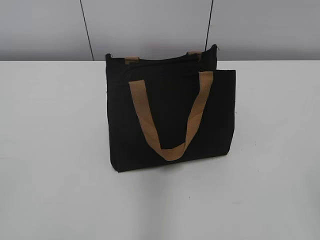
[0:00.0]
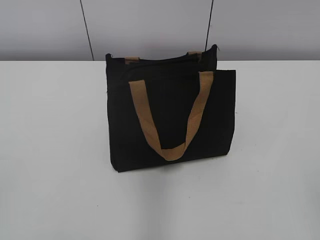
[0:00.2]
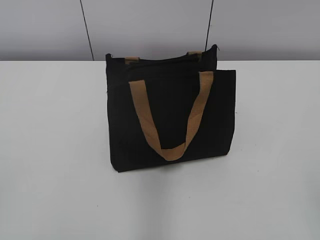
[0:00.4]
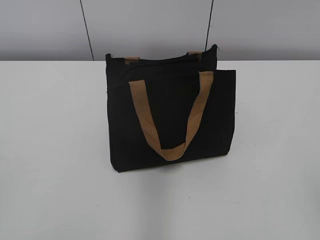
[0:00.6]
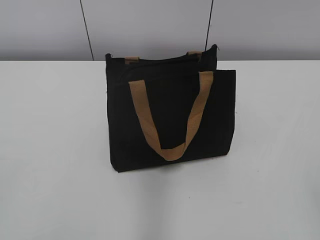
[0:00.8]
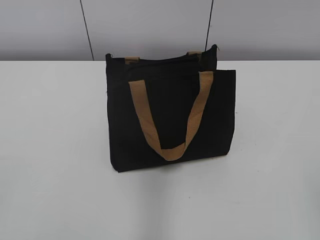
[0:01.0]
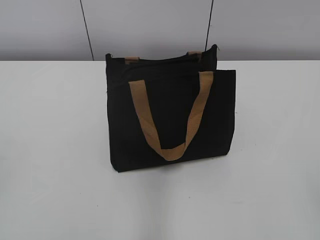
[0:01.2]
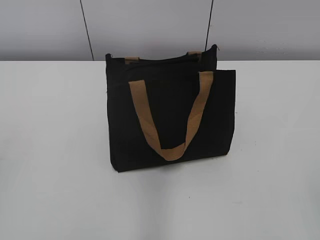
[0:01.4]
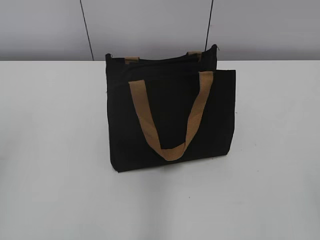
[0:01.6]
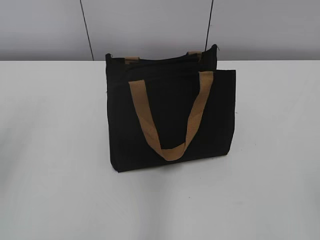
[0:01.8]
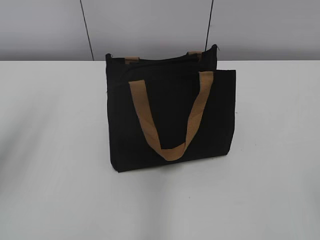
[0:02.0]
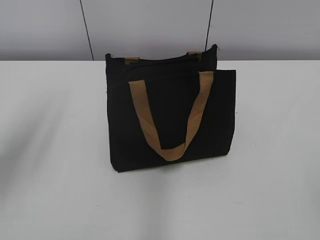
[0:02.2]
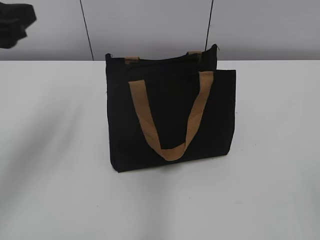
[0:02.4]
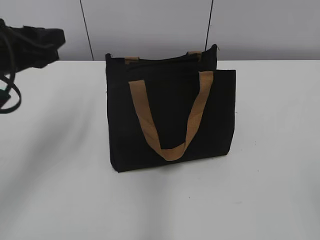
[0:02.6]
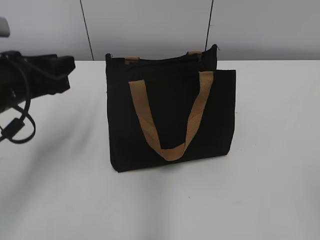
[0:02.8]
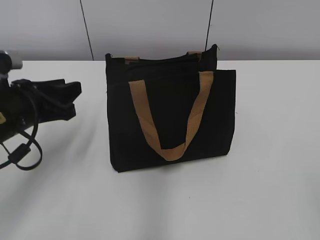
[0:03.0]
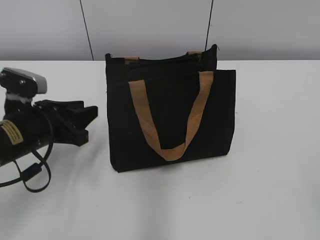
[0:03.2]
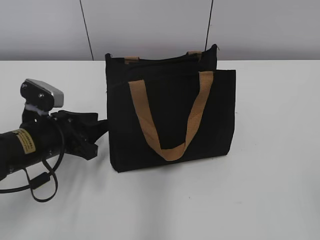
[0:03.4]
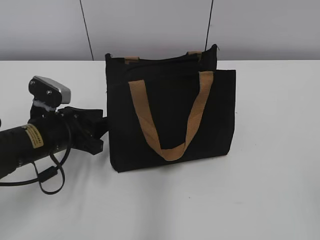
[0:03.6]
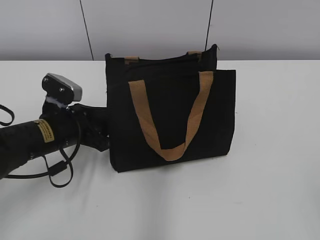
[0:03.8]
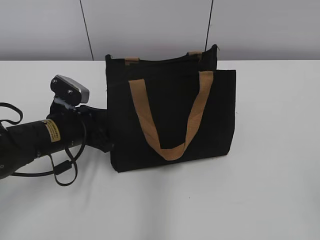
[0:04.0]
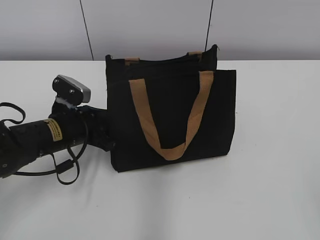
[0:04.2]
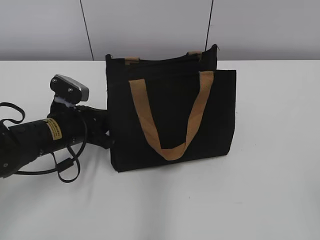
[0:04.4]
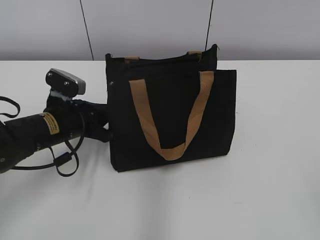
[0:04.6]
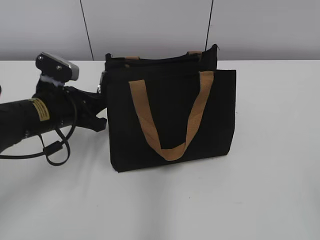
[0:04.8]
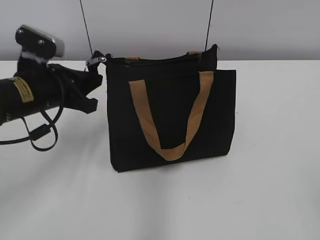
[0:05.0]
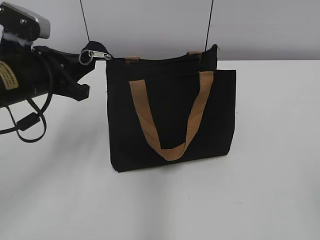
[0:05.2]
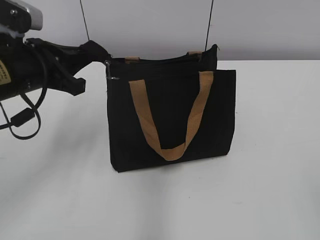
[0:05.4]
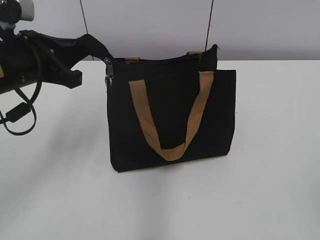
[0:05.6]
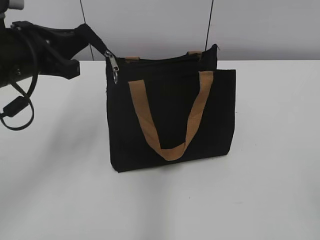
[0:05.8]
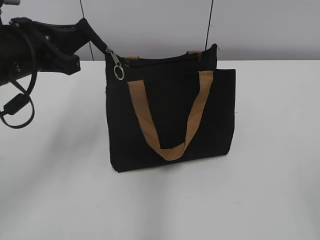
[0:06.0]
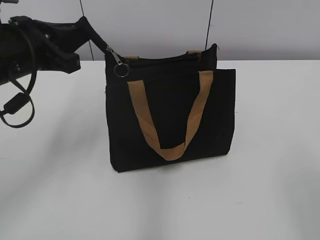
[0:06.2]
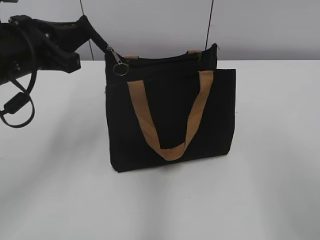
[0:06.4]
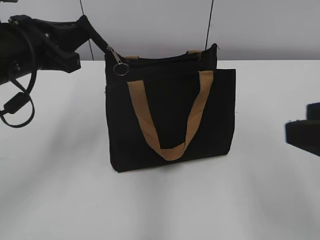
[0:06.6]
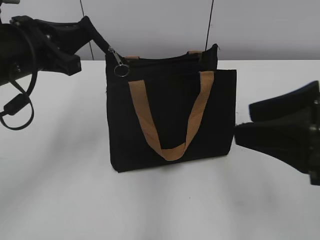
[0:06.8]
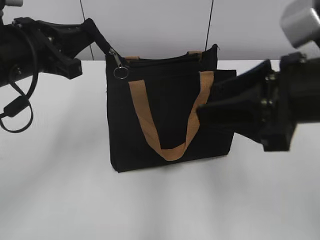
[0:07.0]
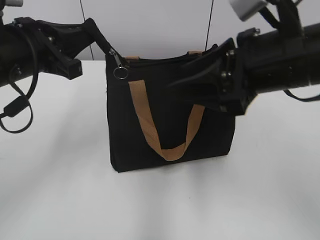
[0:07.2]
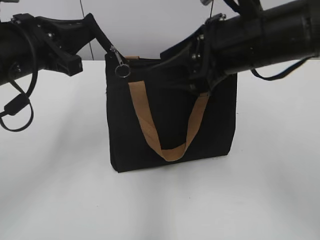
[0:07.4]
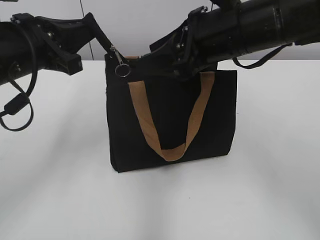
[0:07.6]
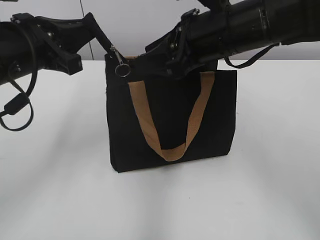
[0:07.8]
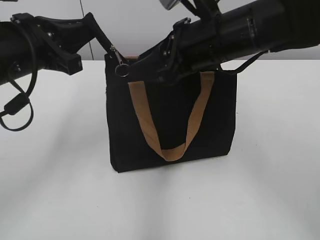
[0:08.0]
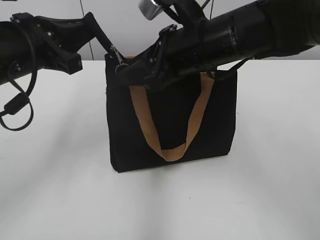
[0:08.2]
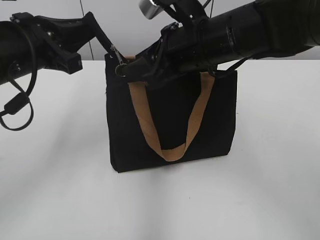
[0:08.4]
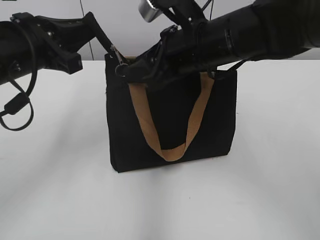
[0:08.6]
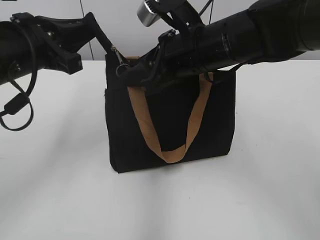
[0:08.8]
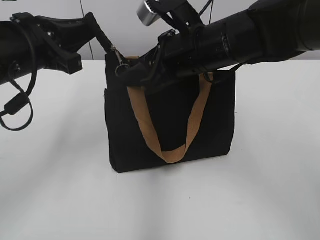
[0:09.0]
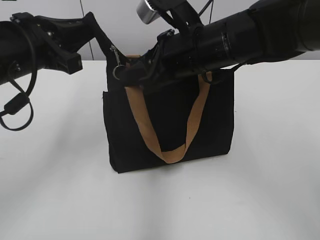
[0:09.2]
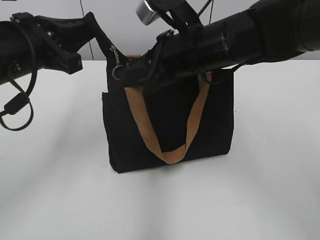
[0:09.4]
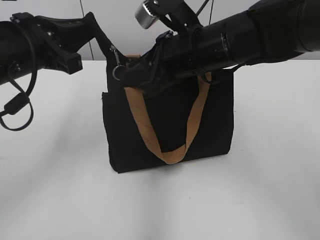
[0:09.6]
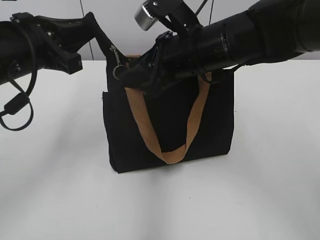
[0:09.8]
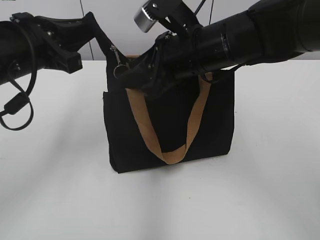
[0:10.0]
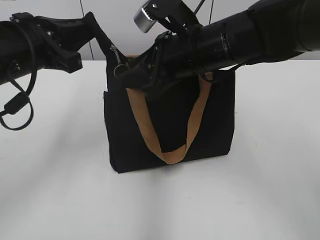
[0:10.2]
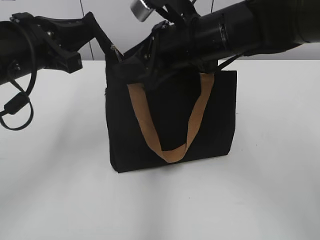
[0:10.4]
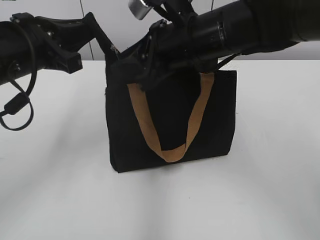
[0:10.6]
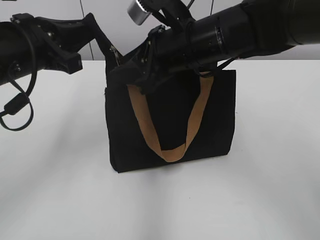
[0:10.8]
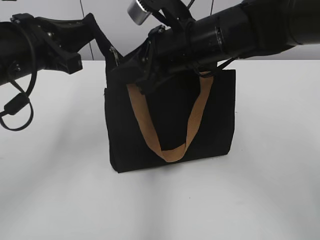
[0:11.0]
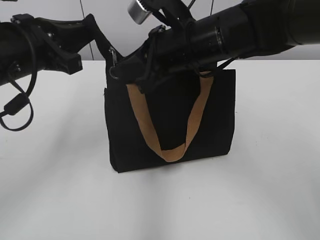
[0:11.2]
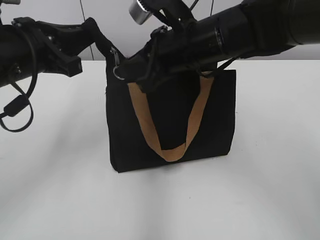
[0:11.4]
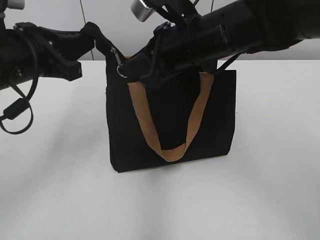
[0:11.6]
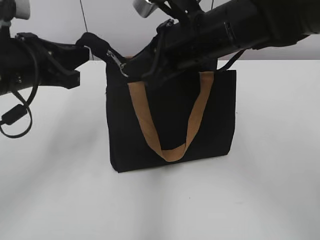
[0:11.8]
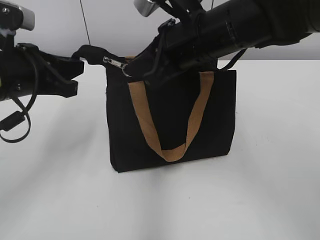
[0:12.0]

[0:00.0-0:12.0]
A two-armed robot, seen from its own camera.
0:01.6 to 0:03.0: The left gripper travels downward, forward and to the right by roughly 25 cm.
0:03.0 to 0:04.4: The left gripper is displaced downward by roughly 10 cm, and closes.
0:04.4 to 0:06.0: The left gripper heads upward, covering roughly 15 cm.
0:06.0 to 0:07.6: The right gripper is displaced forward and to the left by about 35 cm.
0:07.6 to 0:09.0: The right gripper changes place by some 5 cm.
0:09.0 to 0:10.4: There are only small adjustments of the grippers.
0:10.4 to 0:12.0: The right gripper closes.

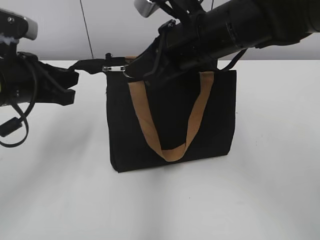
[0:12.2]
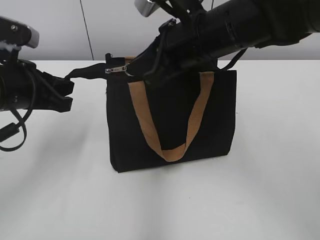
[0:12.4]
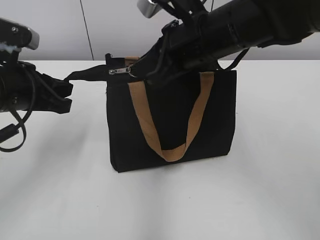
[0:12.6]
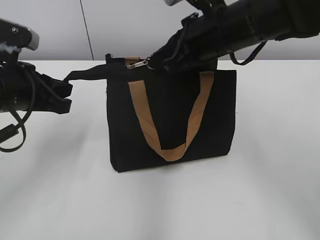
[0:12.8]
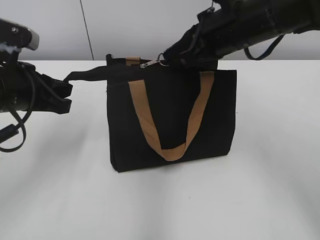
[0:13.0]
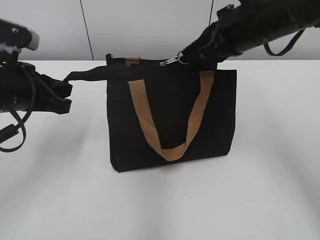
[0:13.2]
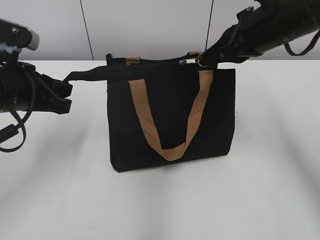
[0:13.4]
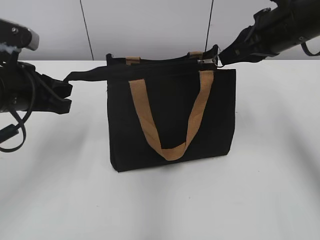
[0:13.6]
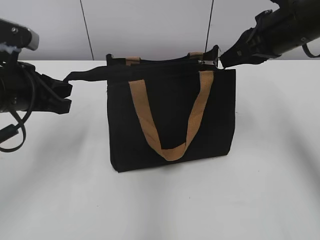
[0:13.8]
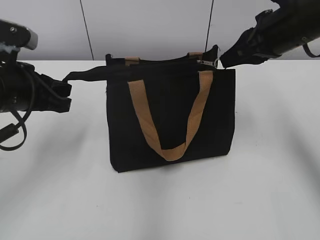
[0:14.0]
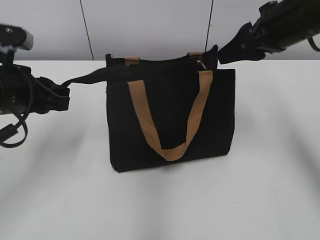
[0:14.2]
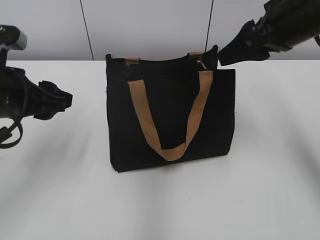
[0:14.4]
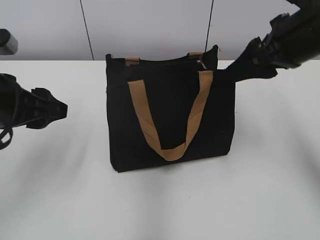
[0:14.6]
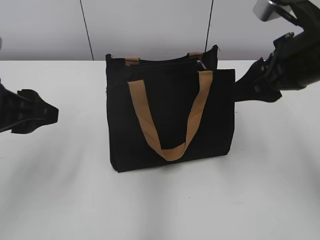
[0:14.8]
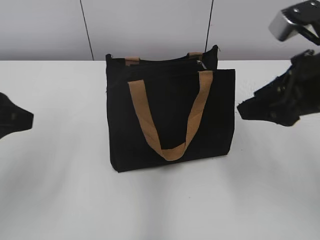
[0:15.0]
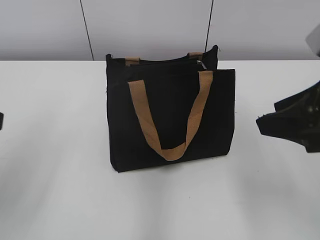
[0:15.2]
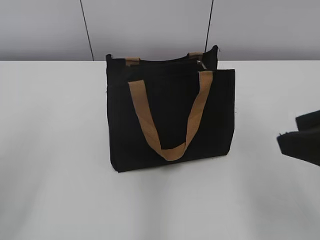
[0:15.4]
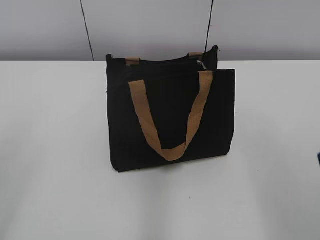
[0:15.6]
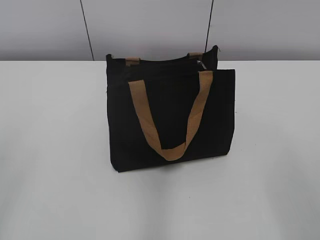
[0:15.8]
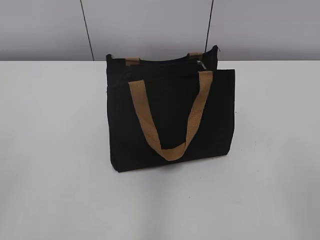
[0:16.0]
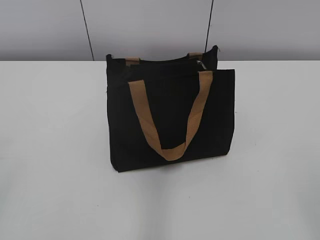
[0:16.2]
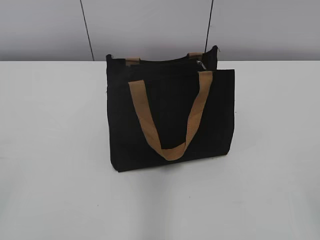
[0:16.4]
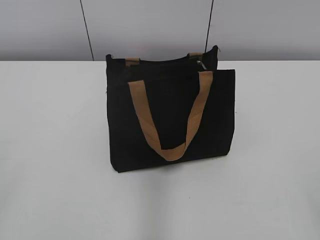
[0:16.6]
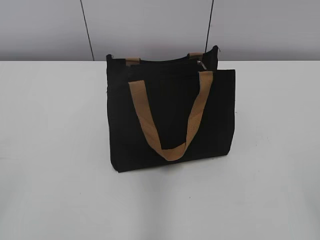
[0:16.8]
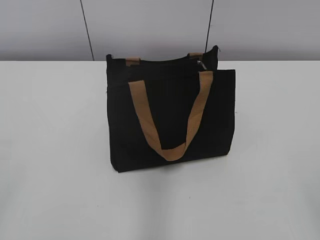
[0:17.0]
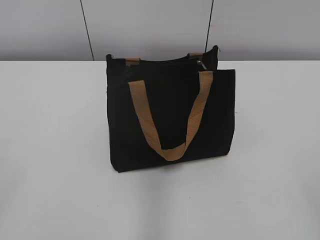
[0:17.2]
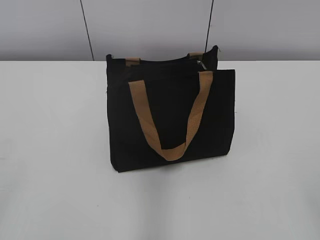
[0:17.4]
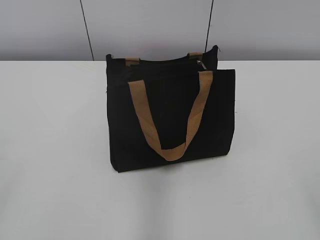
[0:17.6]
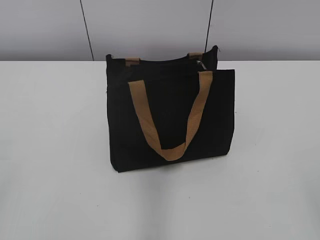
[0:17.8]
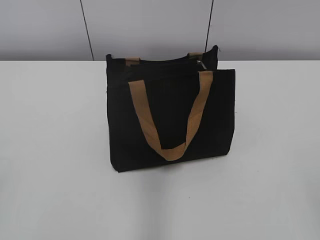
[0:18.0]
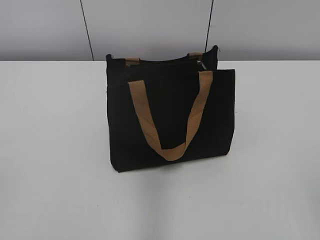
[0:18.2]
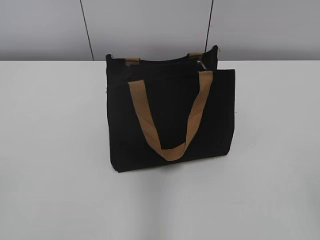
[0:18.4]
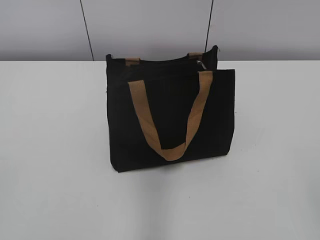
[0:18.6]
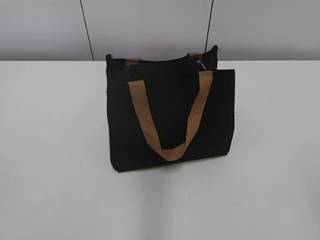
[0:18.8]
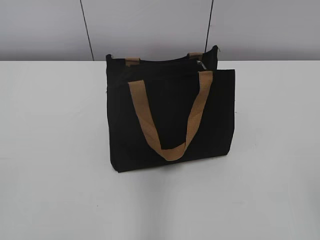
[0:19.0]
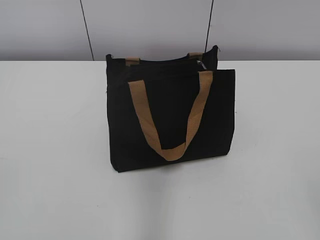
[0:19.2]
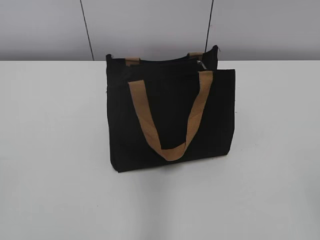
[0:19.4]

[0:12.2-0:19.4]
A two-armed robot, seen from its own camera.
0:12.2 to 0:13.6: The right gripper moves to the right, approximately 15 cm.
0:13.6 to 0:15.0: The grippers both shift backward by approximately 10 cm. The left gripper opens up. Meanwhile the right gripper opens up.
0:15.0 to 0:16.6: The right gripper travels backward by approximately 25 cm. The left gripper goes roughly 20 cm backward and to the left.
